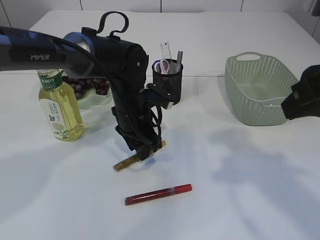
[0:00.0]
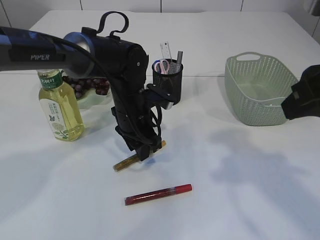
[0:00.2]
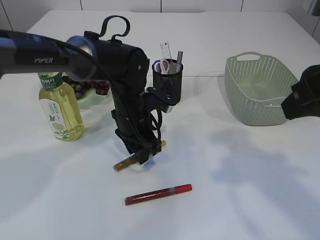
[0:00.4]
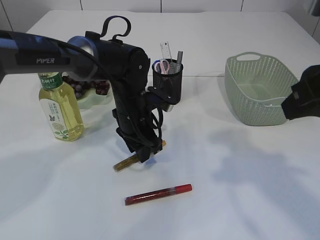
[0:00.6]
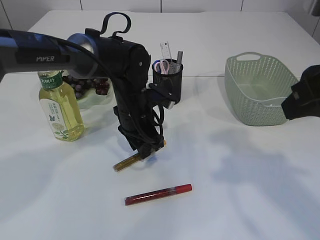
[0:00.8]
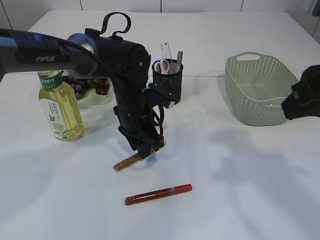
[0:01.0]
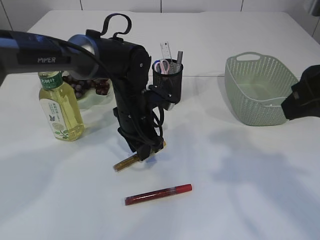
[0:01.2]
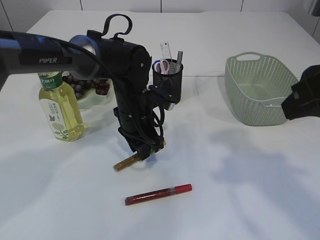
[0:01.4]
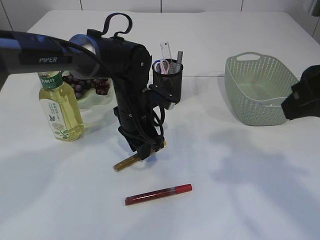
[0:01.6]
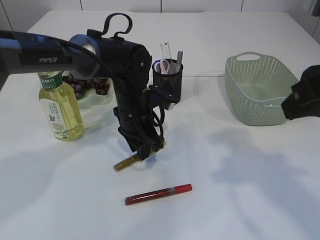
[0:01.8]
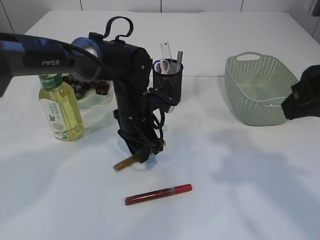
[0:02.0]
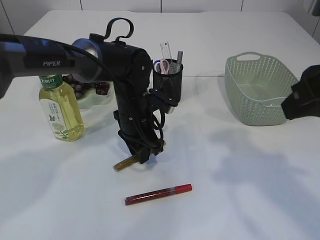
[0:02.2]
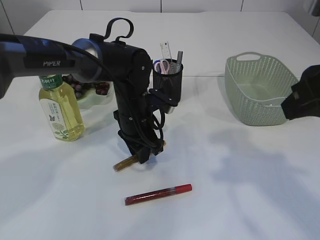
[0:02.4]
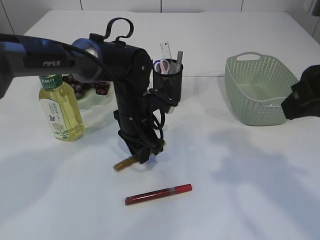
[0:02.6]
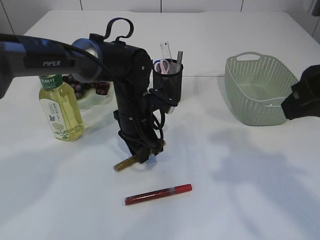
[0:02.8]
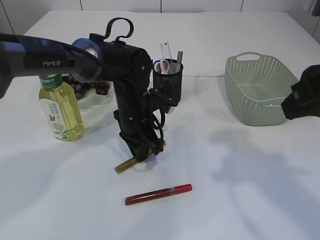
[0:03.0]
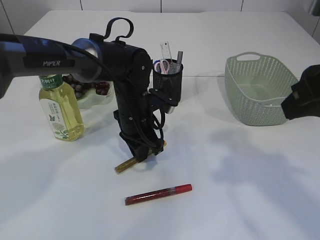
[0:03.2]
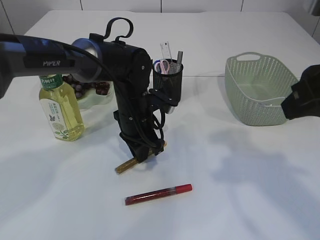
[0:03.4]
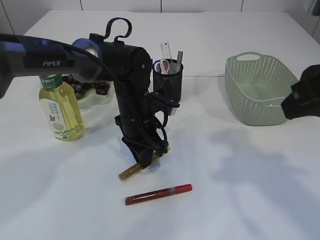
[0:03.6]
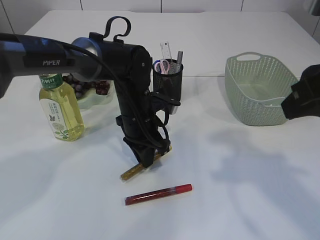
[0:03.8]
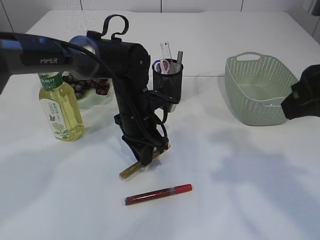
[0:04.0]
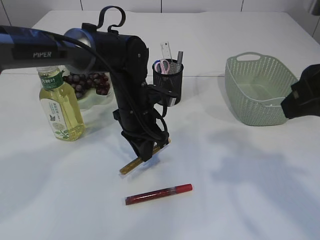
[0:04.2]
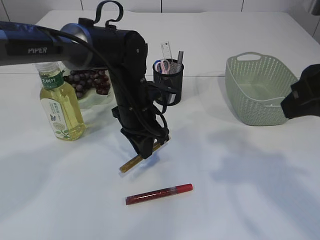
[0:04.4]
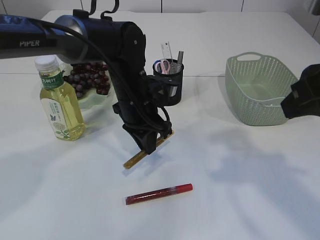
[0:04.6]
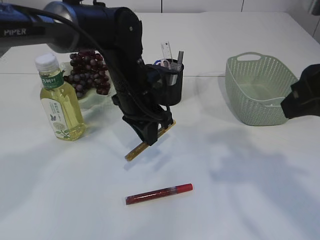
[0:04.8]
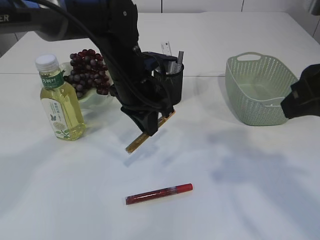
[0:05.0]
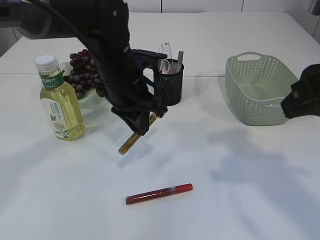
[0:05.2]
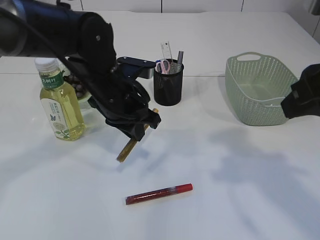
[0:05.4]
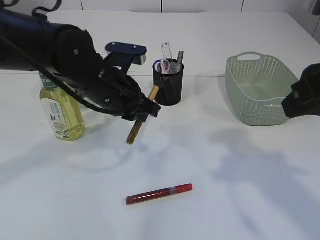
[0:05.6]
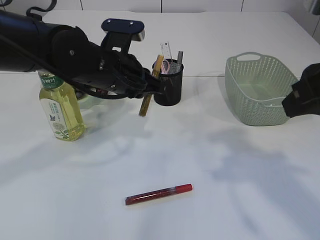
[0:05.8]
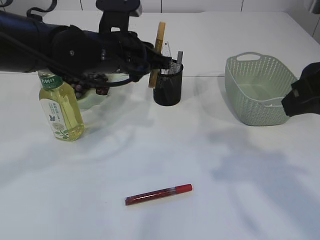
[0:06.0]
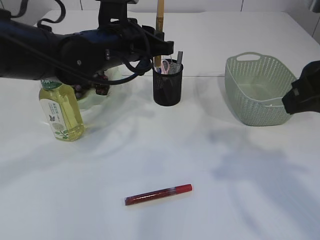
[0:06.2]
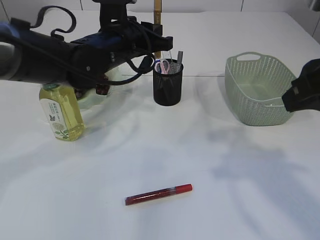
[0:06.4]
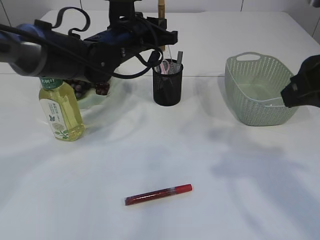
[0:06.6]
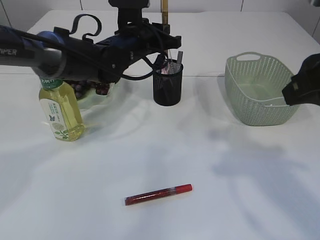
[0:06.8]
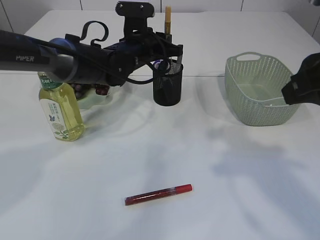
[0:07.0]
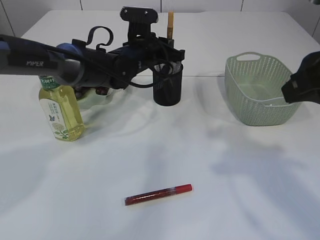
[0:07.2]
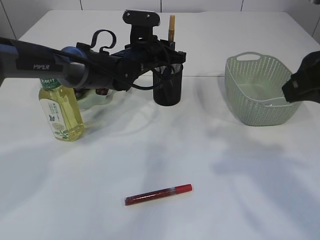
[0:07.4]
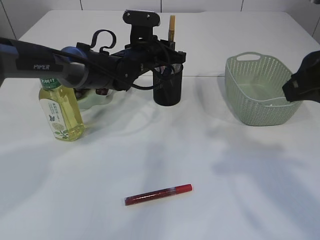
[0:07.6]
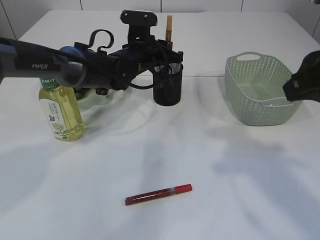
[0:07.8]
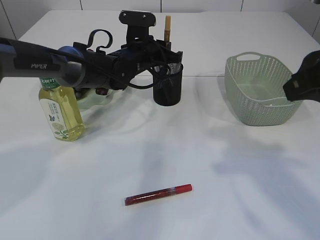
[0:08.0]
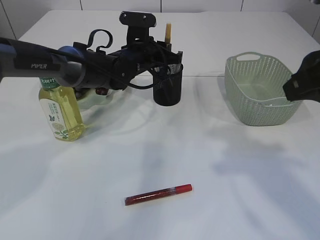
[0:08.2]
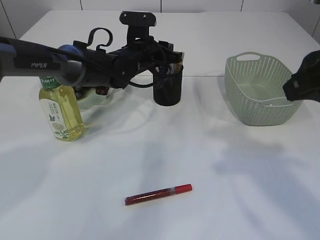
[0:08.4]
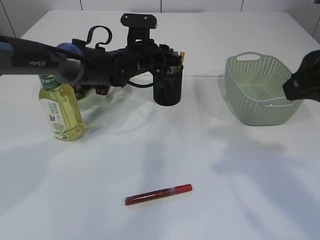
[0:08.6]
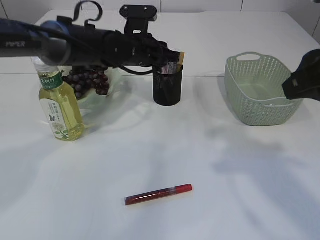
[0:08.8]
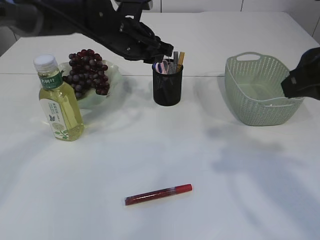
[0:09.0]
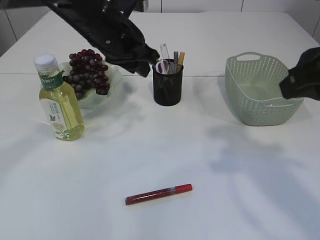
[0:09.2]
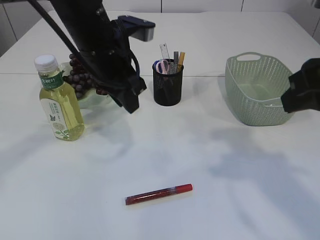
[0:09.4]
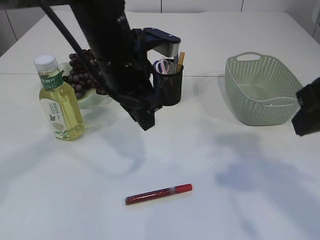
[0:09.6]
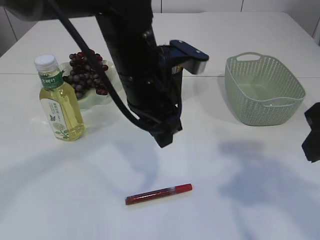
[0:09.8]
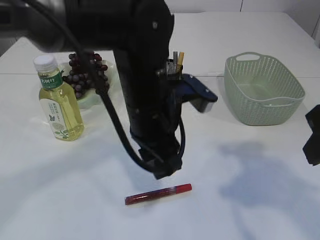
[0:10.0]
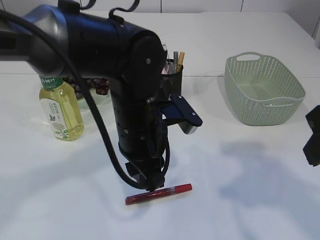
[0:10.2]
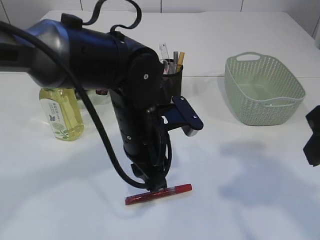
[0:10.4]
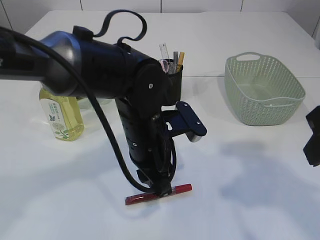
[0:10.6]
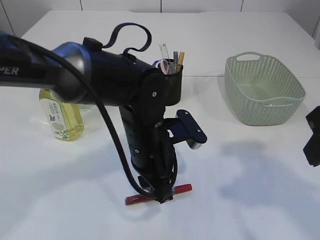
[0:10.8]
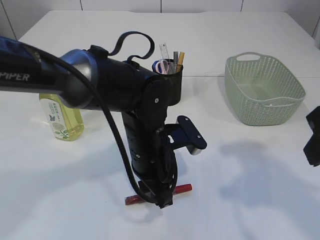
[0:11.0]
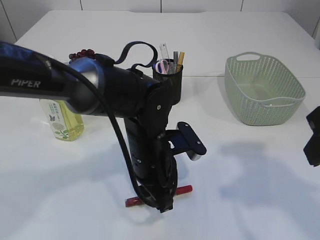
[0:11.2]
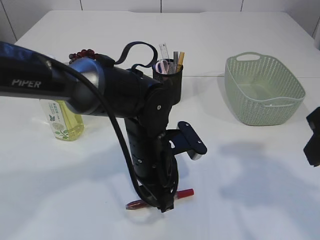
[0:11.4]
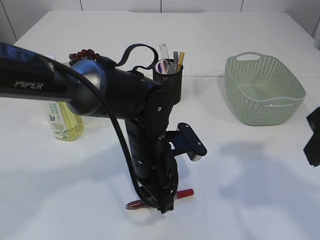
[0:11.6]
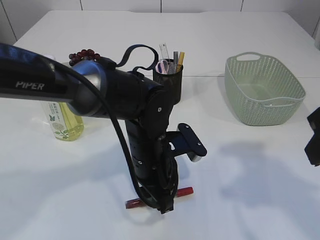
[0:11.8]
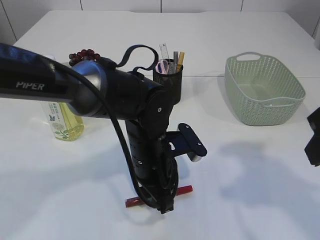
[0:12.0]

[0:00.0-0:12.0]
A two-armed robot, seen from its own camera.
Step, 0:00.0 to 0:05.2: pick up the yellow glue.
Step, 0:05.4 to 0:09.2: place the yellow glue into the pen holder.
0:00.0 to 0:03.0: Neither gripper changes place.
0:03.0 to 0:04.4: The grippers stay close to where they were, moving slightly.
0:04.4 to 0:06.0: The left gripper is displaced upward by about 10 cm.
0:06.0 to 0:07.6: The left gripper travels forward and downward by some 15 cm.
0:07.6 to 0:09.0: The left gripper moves upward, approximately 5 cm.
0:09.0 to 0:10.4: The left gripper moves backward, approximately 15 cm.
0:10.4 to 0:12.0: The left gripper moves downward, roughly 5 cm.

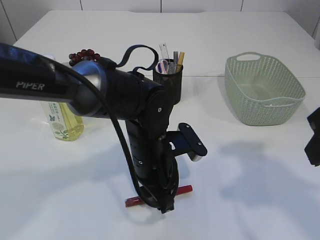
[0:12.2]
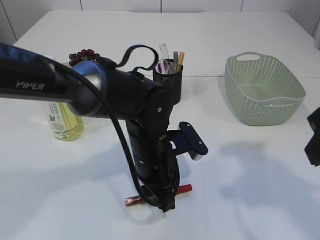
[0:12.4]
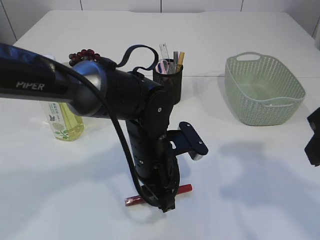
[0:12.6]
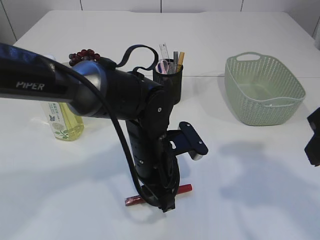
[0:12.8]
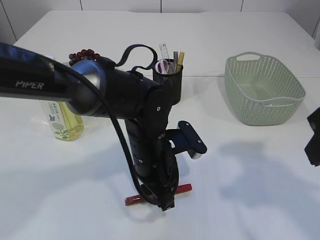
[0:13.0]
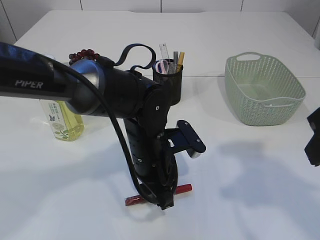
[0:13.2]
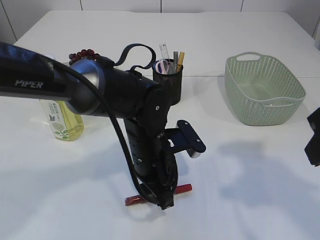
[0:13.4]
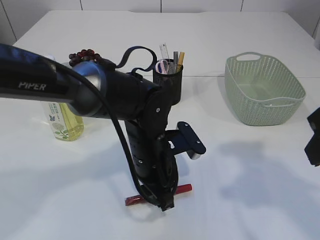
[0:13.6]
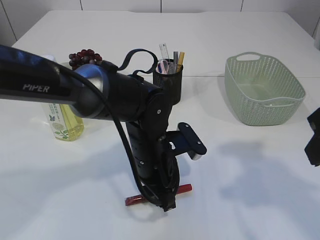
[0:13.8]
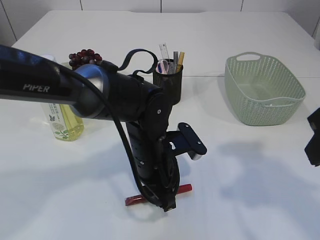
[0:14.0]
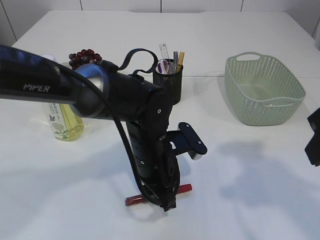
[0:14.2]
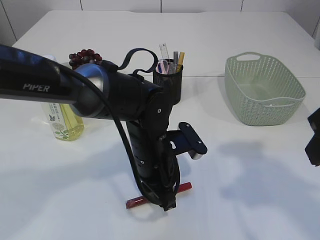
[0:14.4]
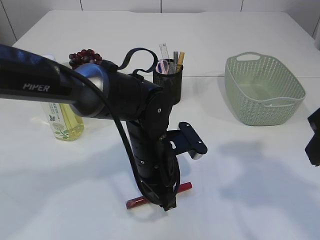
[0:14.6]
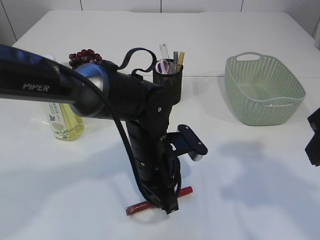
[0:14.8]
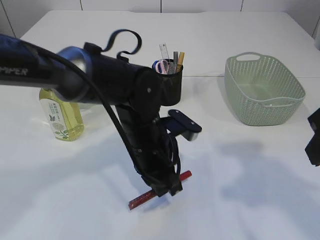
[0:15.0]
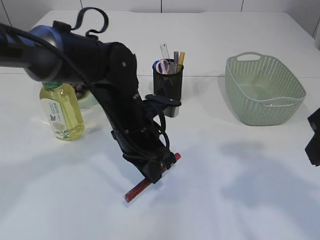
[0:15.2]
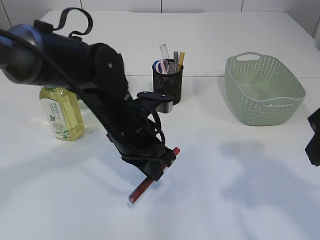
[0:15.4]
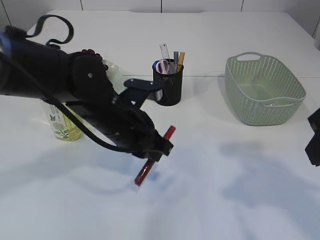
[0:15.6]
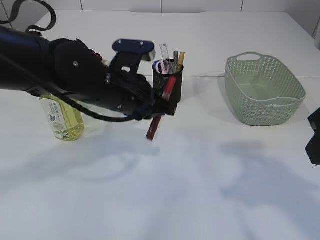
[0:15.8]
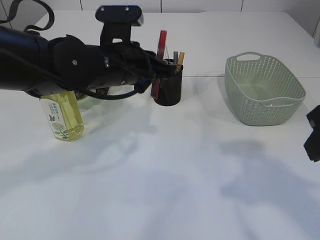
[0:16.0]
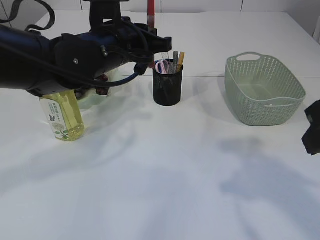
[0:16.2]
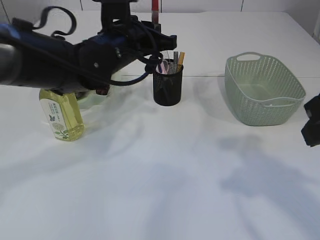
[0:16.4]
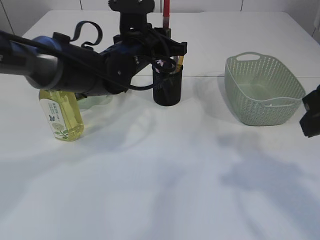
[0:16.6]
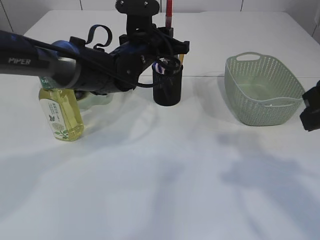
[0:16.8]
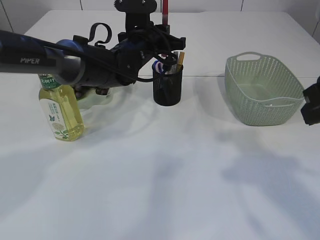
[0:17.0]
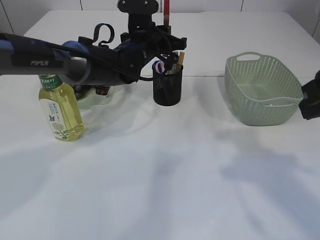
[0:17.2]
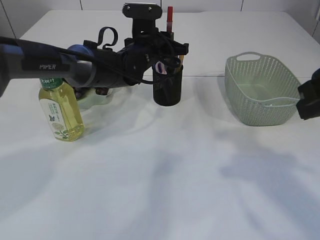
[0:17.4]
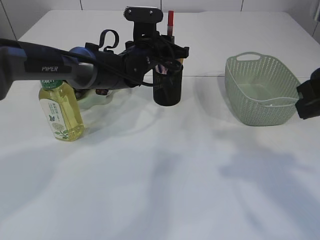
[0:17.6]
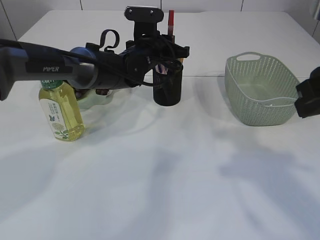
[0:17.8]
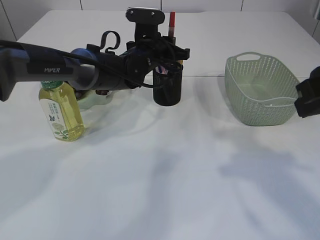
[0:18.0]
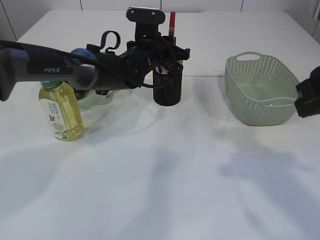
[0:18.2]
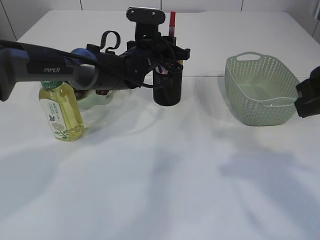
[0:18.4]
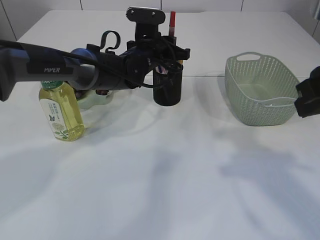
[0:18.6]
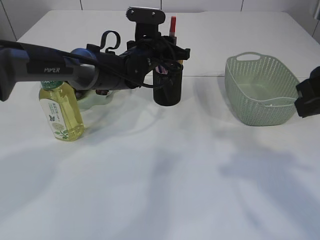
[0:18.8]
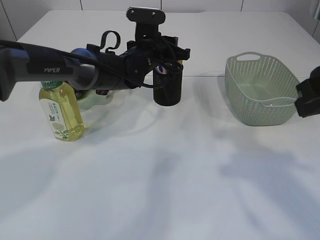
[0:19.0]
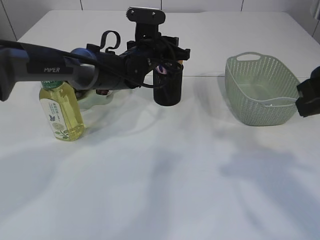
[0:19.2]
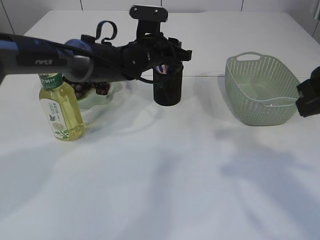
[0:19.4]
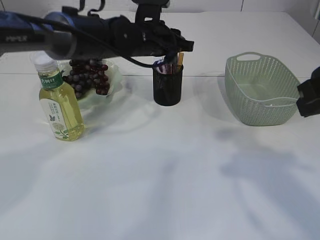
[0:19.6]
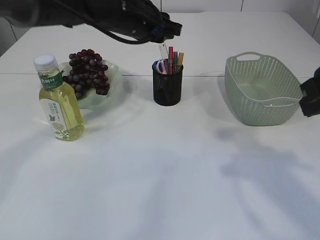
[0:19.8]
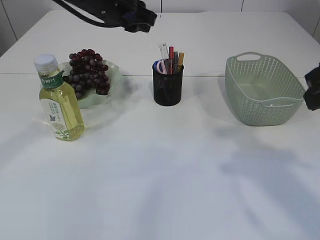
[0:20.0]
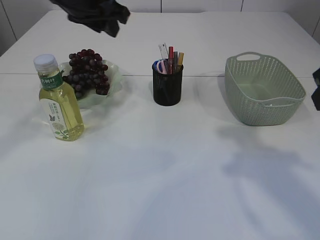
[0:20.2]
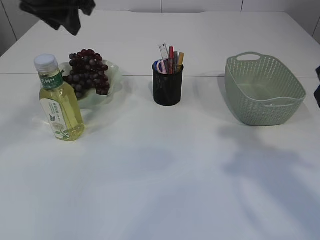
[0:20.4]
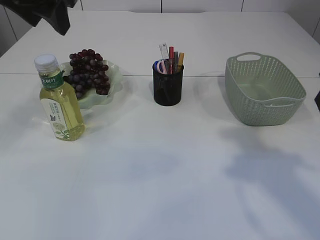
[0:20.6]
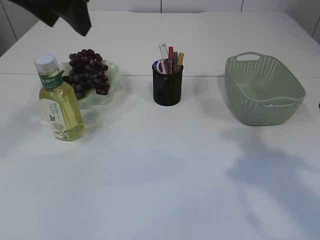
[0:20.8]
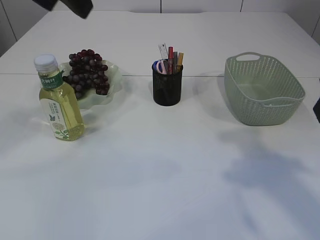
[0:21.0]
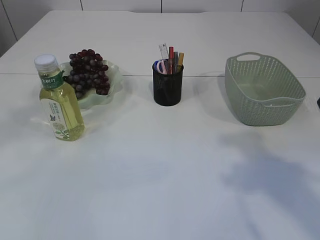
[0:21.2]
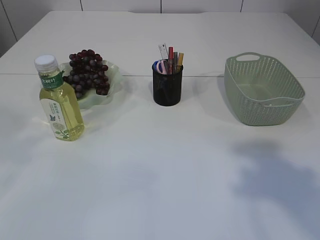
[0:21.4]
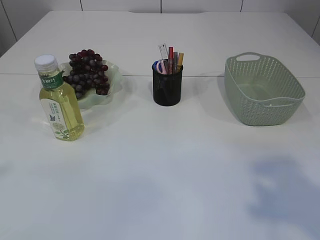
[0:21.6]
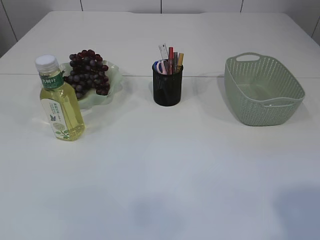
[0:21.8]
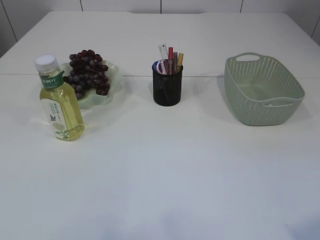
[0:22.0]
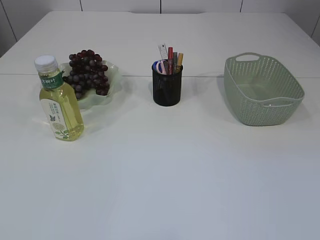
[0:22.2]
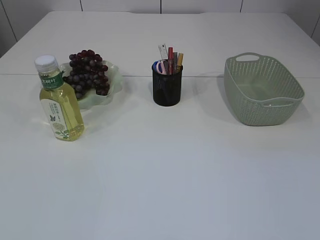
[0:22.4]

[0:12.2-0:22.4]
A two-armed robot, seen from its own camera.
Step, 0:12.2 to 0:15.6: pick up the red glue.
Step, 0:15.8 to 0:19.8: place the red glue into the pen holder.
0:12.2 to 0:13.6: The two grippers keep their place.
0:13.6 to 0:15.2: The left gripper shifts by some 5 cm, and closes its fingers.
0:15.2 to 0:16.6: The left gripper moves forward and upward, roughly 10 cm.
0:16.6 to 0:18.0: The left gripper is displaced forward by roughly 5 cm.
0:18.0 to 0:19.4: The left gripper opens.
0:19.4 to 0:21.0: The left gripper travels upward, backward and to the left by about 30 cm, and opens up.
0:21.0 to 0:22.4: The left gripper shifts roughly 35 cm backward and to the left. The right gripper is displaced backward by roughly 25 cm.
